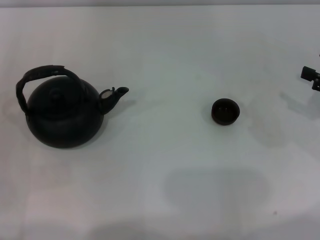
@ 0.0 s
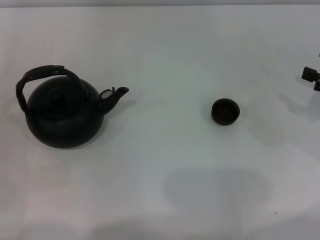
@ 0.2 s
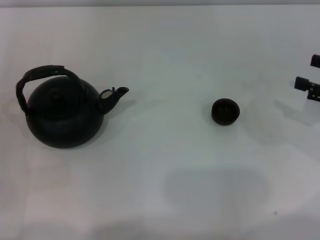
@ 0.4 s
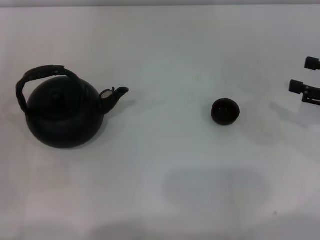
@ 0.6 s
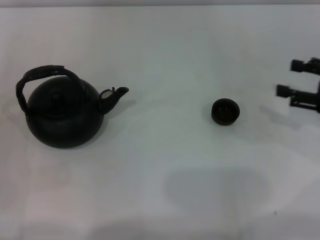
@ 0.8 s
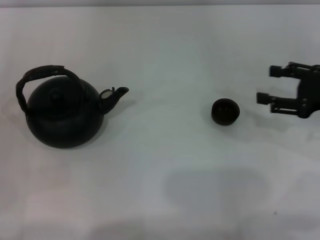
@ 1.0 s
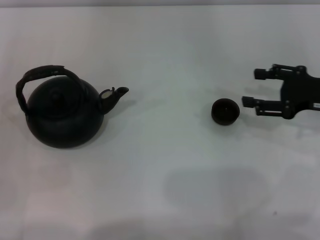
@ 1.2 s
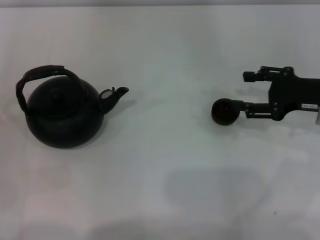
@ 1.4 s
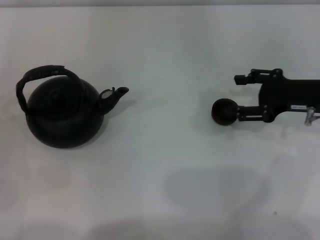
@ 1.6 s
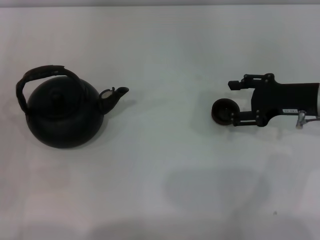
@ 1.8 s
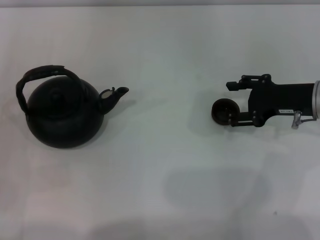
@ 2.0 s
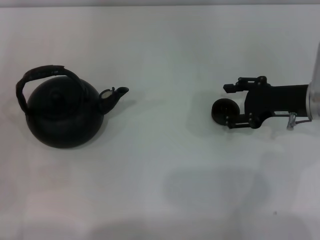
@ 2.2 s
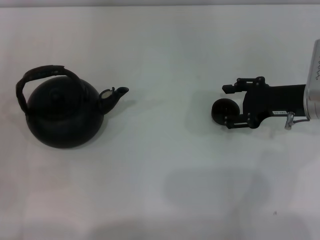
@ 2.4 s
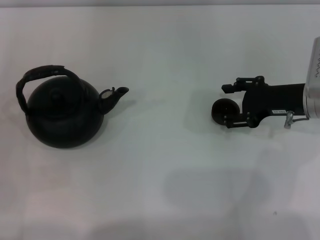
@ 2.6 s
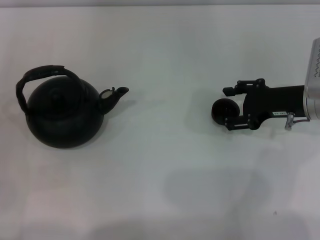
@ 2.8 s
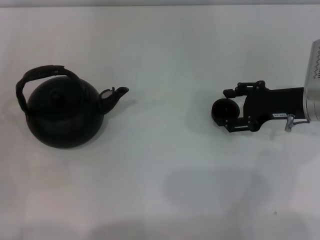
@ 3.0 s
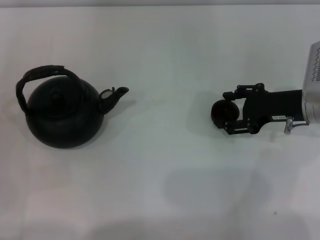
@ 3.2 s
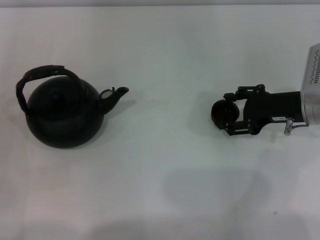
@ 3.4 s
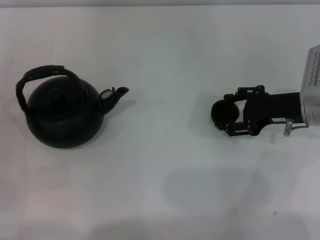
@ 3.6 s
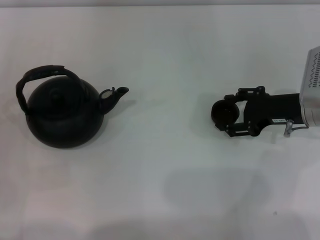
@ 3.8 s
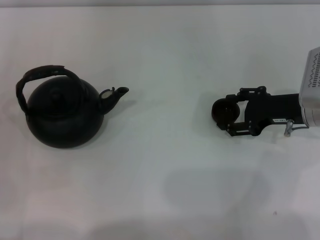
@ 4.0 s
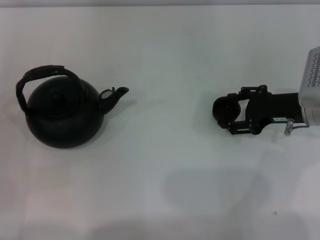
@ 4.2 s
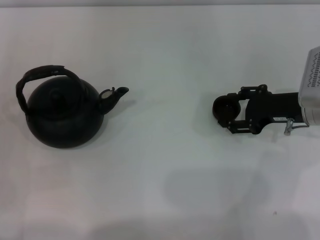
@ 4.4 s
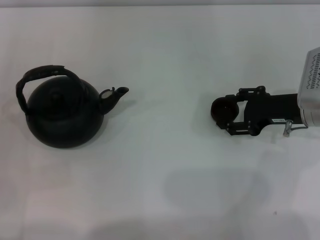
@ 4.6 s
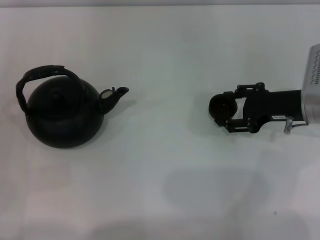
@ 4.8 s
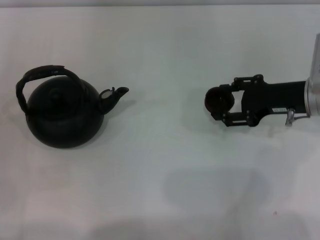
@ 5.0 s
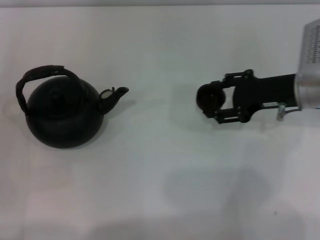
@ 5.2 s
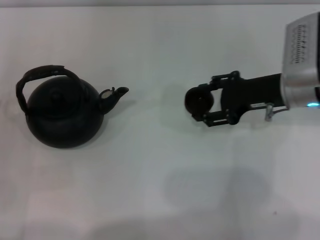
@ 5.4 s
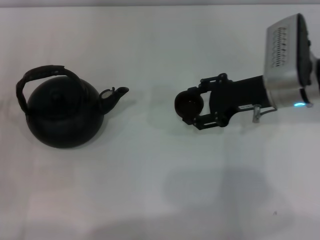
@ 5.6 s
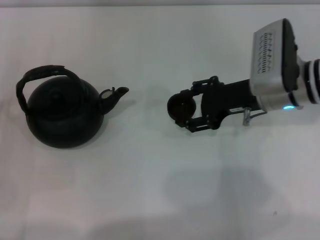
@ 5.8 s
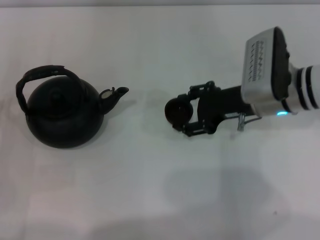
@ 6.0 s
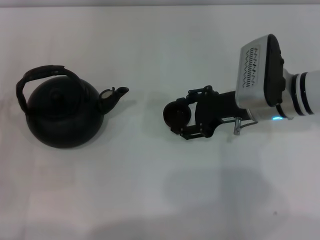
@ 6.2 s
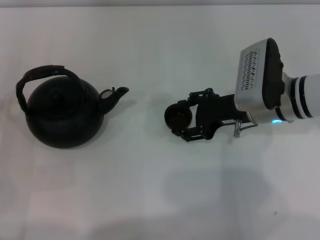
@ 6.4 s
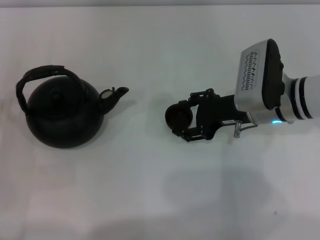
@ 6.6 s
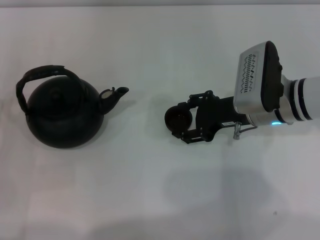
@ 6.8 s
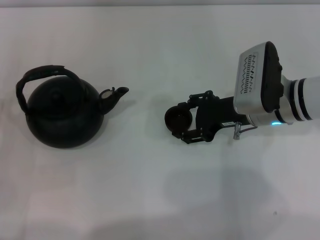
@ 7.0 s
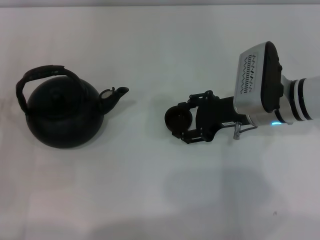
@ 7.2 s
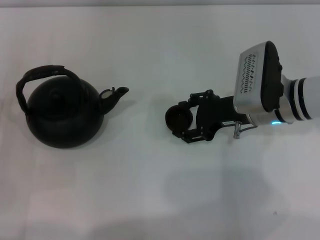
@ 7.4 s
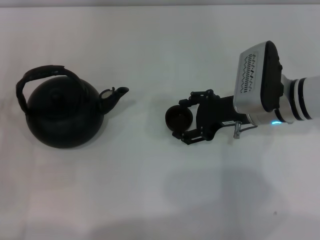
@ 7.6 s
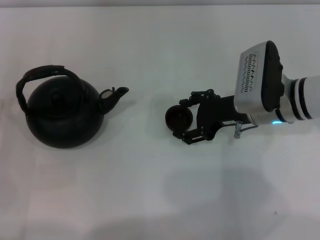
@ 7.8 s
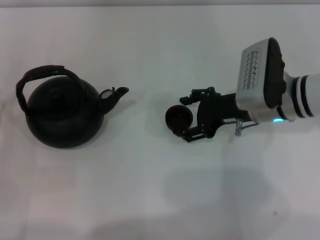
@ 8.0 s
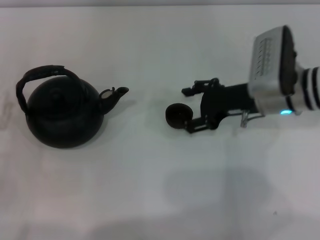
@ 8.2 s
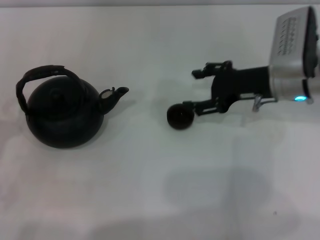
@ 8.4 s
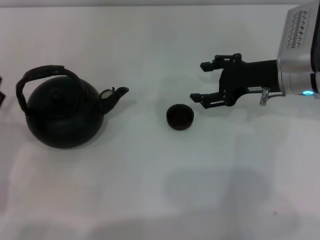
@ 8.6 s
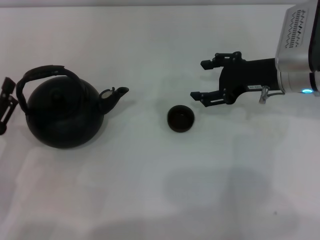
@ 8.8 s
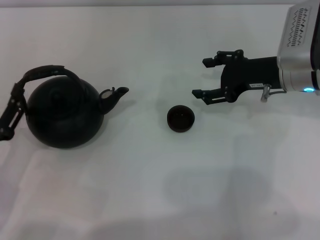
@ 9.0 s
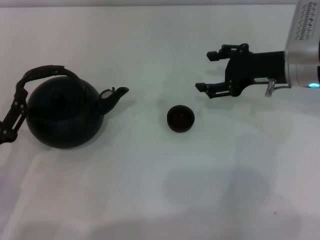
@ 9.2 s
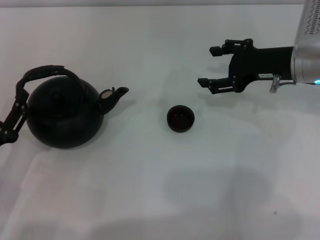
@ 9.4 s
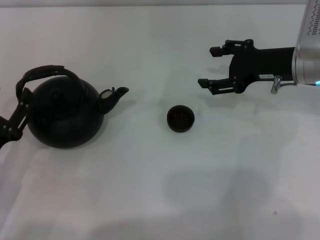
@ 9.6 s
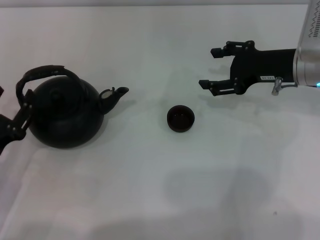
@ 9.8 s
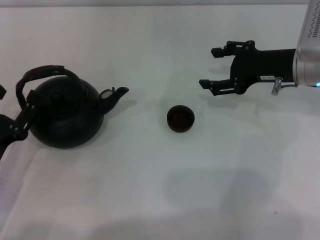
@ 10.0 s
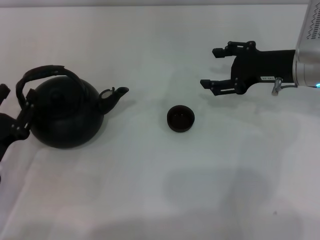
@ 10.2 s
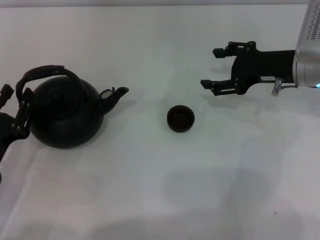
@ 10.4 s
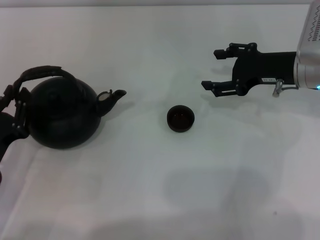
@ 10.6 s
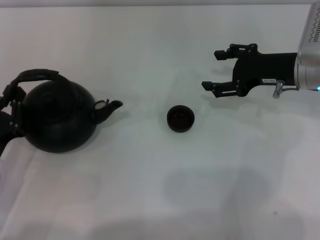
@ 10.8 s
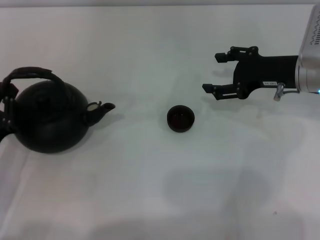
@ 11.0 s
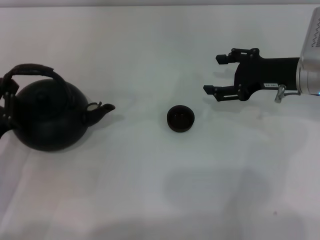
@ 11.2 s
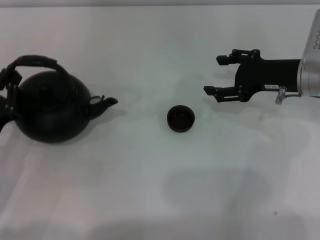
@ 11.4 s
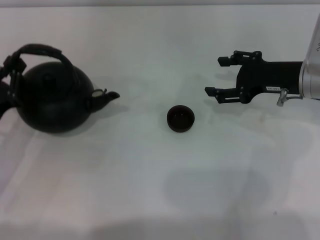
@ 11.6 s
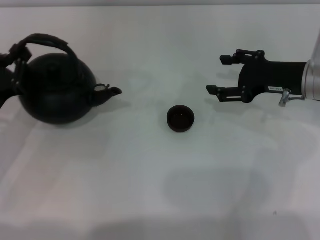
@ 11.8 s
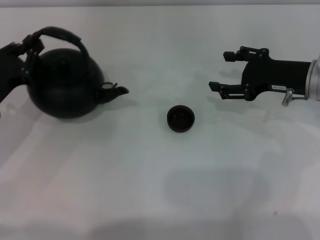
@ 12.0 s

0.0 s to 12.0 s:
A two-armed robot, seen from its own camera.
Task of the whole recording: Grasp the handle of the teapot with one hand and pour tea into the teacup.
Step, 0.0 to 4.8 s: Pick up the teacup with the right gripper.
Step, 5.2 to 8.4 s: Place the teacup in the center of view with the right gripper.
0.0 to 1.6 s: The right gripper goes approximately 10 cm to the left.
1.6 to 3.0 s: The grippers stay close to where they were, moving slightly.
3.0 to 4.4 s: The two grippers keep their place.
4.4 to 6.0 s: The right gripper goes approximately 10 cm to the left.
6.0 to 7.6 s: The right gripper opens.
7.6 to 9.0 s: The right gripper ends up approximately 5 cm from where it was. Meanwhile the left gripper changes place by approximately 5 cm.
9.0 to 10.4 s: The grippers move only a little.
10.4 to 12.0 s: The left gripper moves forward, about 10 cm, and closes its fingers.

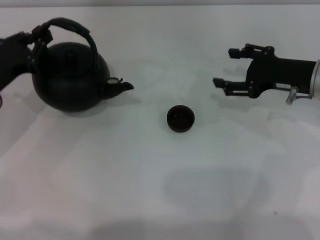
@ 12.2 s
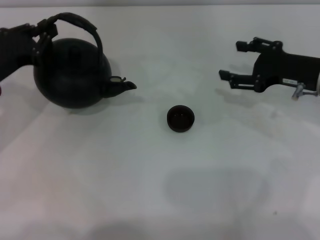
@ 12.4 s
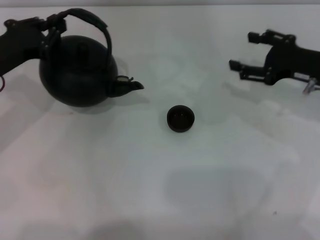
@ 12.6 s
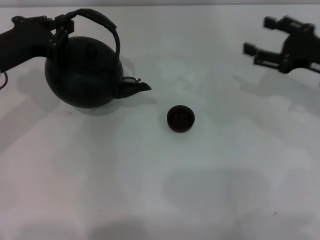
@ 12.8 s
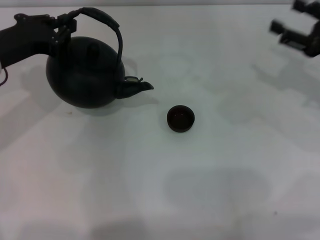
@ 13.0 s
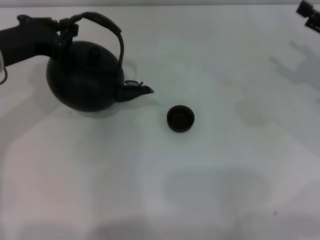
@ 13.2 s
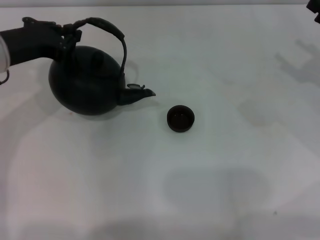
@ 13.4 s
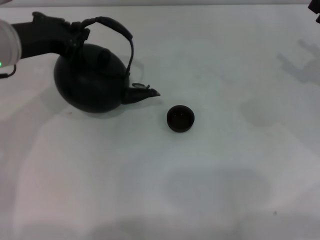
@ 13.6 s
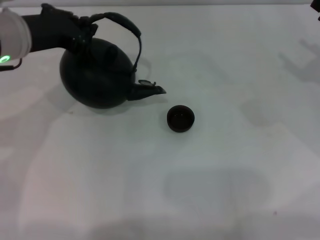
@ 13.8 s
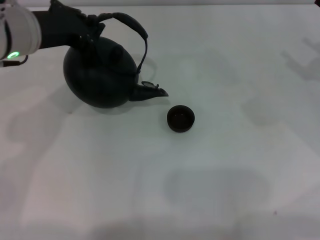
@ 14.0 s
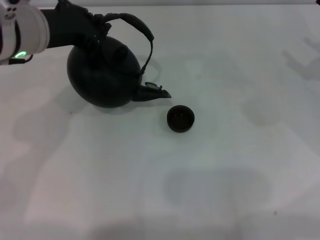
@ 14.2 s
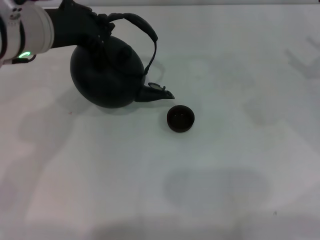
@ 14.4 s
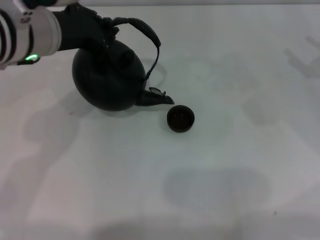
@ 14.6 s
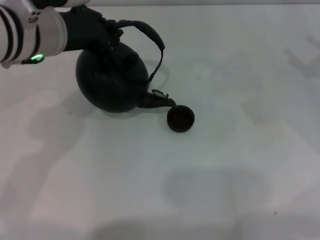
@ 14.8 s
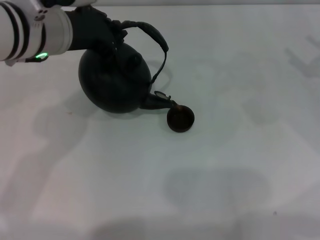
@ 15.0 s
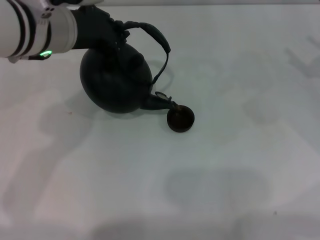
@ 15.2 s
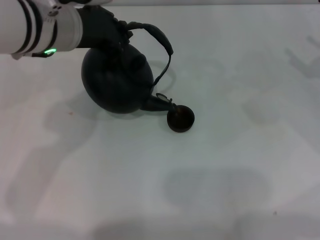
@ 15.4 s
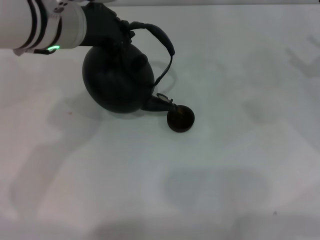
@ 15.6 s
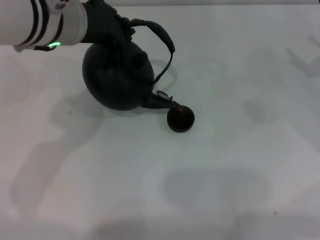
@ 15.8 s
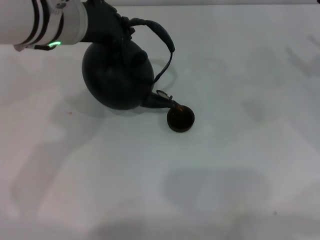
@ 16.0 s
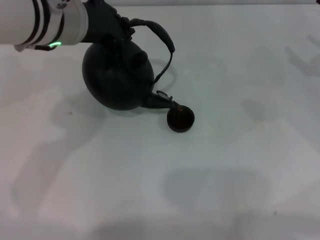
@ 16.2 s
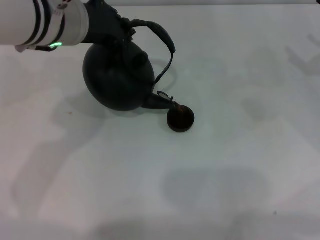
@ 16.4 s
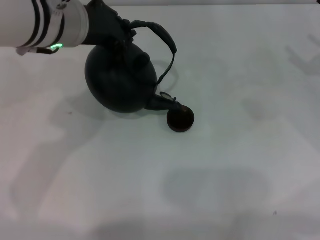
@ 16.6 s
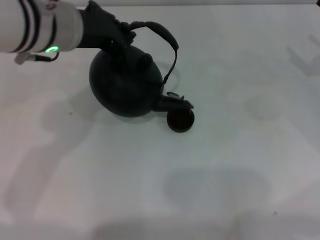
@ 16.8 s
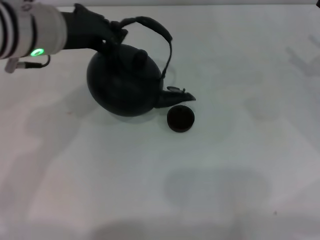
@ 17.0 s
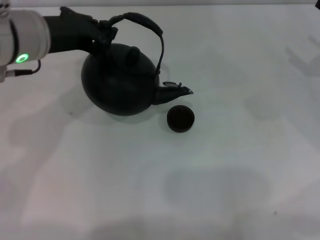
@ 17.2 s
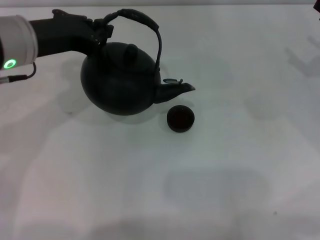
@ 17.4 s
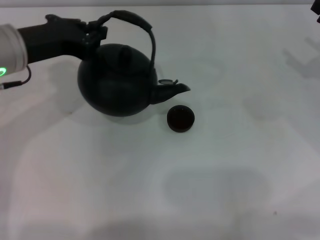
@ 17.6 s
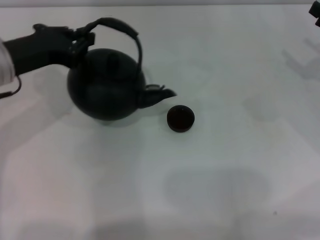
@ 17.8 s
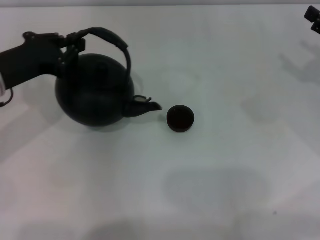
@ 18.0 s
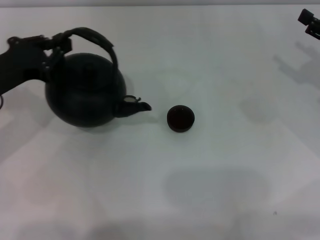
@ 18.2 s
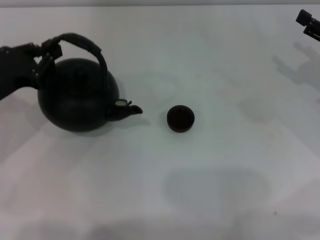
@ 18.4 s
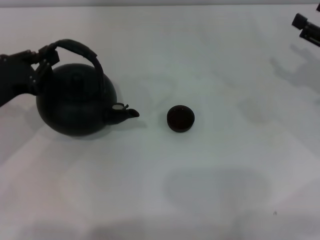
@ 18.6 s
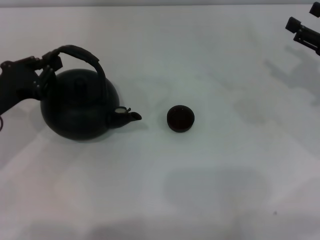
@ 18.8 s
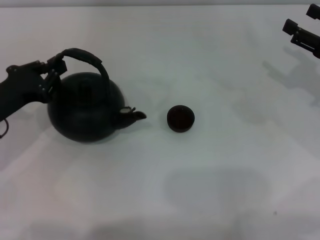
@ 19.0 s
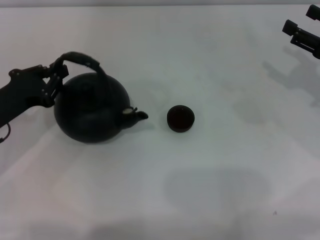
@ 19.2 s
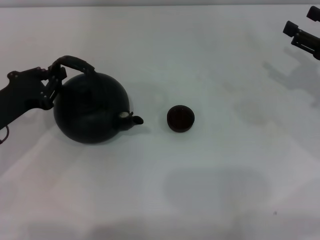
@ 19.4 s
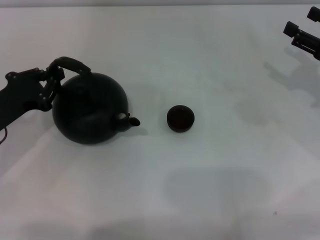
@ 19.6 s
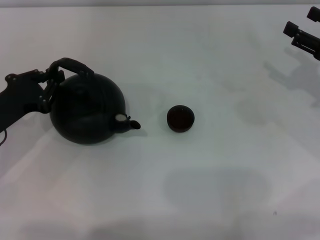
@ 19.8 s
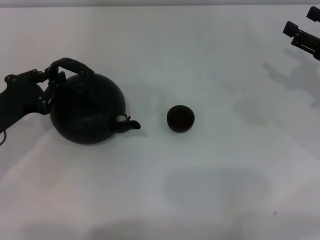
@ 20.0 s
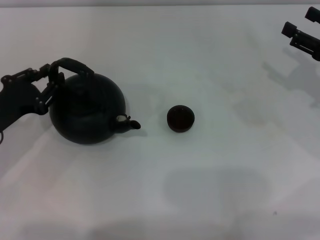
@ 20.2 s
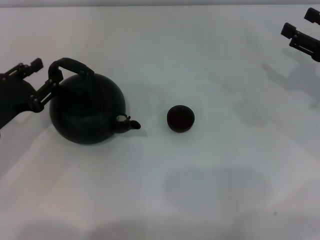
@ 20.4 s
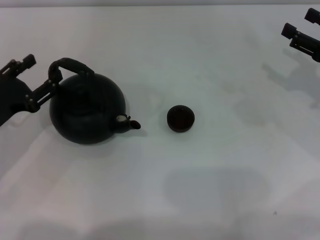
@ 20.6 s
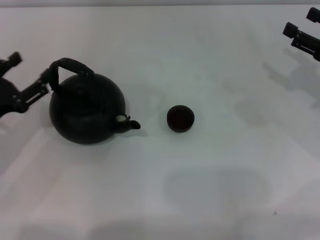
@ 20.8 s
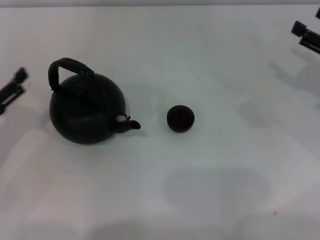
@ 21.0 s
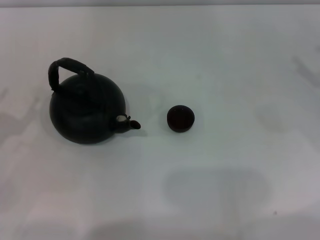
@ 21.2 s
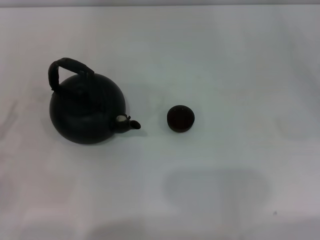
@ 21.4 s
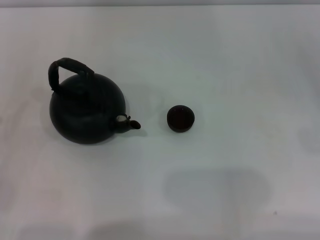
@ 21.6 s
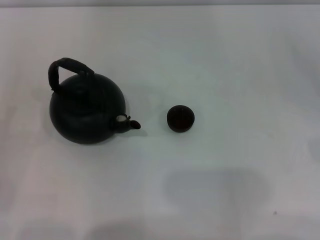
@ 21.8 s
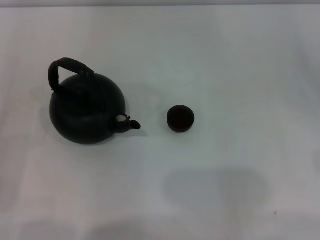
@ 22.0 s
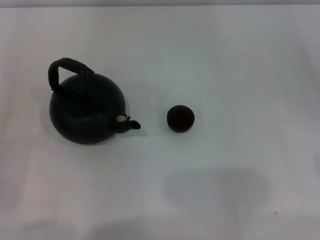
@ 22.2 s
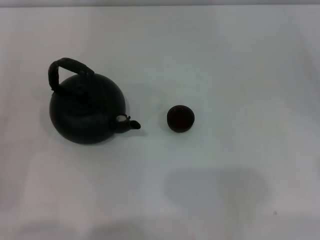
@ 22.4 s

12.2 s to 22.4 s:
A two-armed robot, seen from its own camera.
Task of the whole recording: Grasp the handle of the teapot with one hand and pour tea into the teacup.
Step, 12.8 to 17.6 s: Pour tea into the teacup with the left gripper.
Step, 17.8 to 20.8 s: Put down the teapot with the left gripper.
12.2 to 13.6 s: The left gripper moves upward and to the right, approximately 10 cm, while the right gripper shifts roughly 10 cm to the right.
13.6 to 15.2 s: The left gripper moves to the right, roughly 10 cm.
15.2 to 16.6 s: The grippers stay close to where they were, moving slightly.
16.6 to 18.0 s: The left gripper heads to the left and downward, covering approximately 15 cm.
18.0 to 19.4 s: The left gripper shifts roughly 10 cm downward.
19.4 to 21.0 s: The left gripper moves about 5 cm, and opens its fingers.
21.0 to 22.4 s: The right gripper heads backward, to the right and downward, covering roughly 15 cm. Meanwhile the left gripper travels backward by approximately 10 cm.
